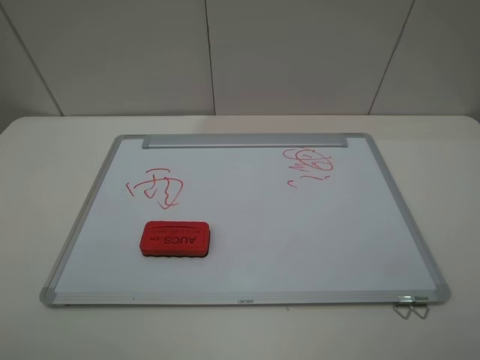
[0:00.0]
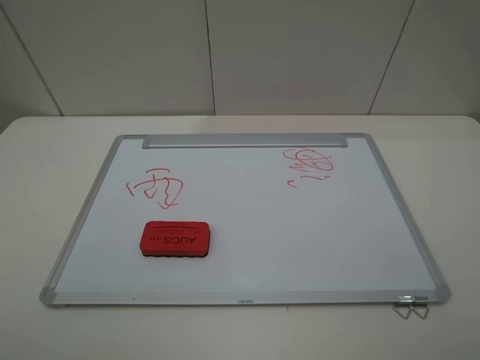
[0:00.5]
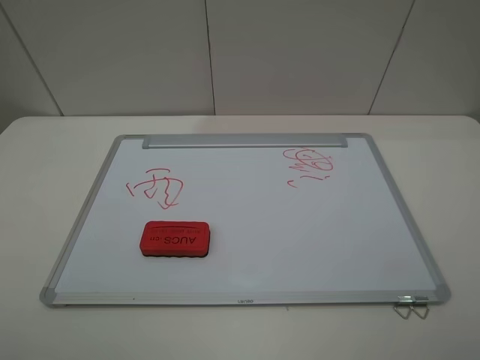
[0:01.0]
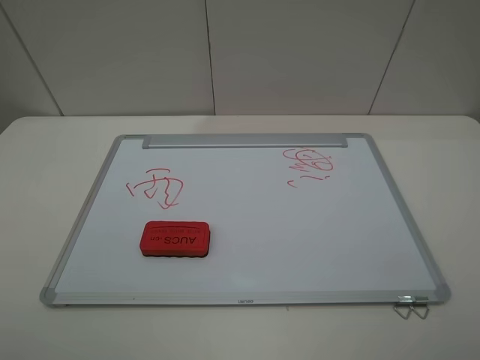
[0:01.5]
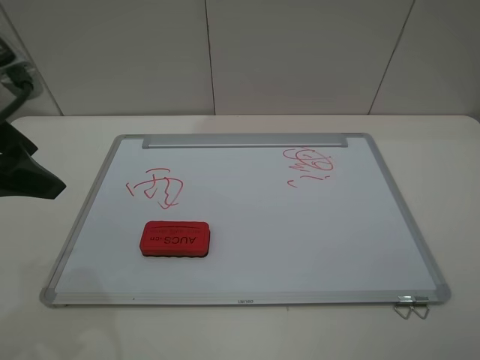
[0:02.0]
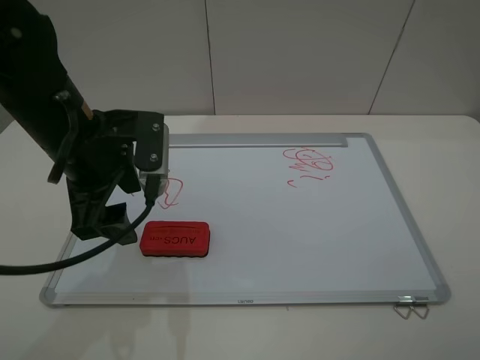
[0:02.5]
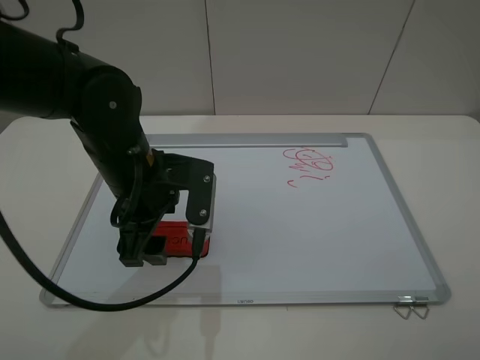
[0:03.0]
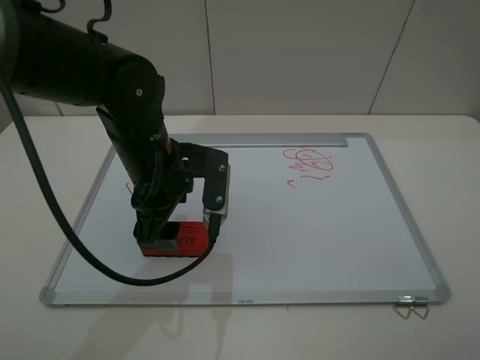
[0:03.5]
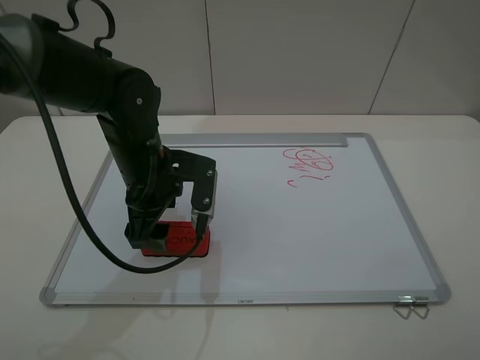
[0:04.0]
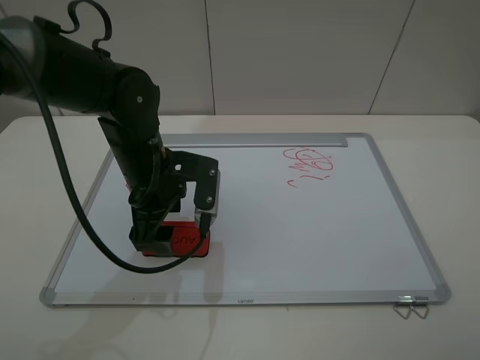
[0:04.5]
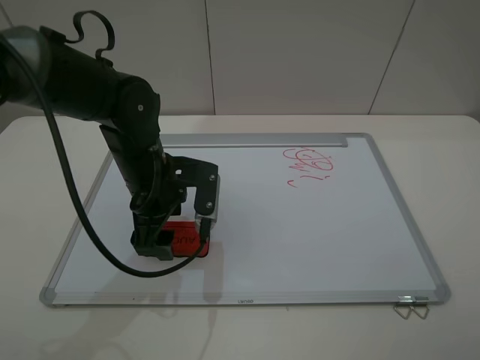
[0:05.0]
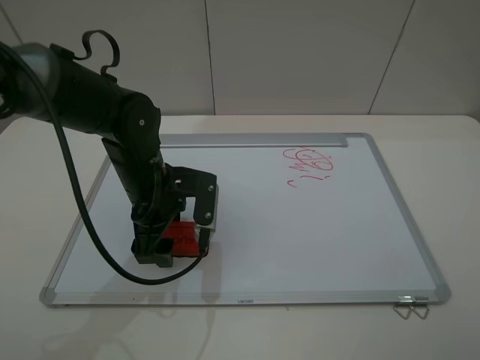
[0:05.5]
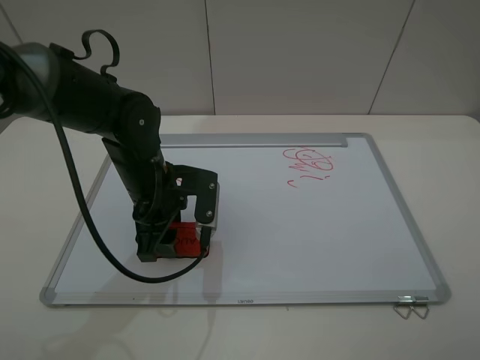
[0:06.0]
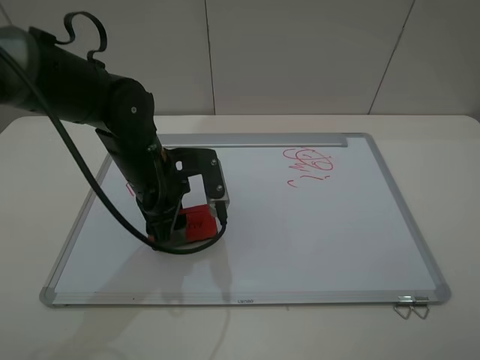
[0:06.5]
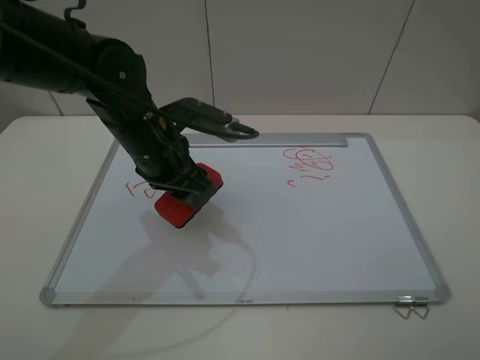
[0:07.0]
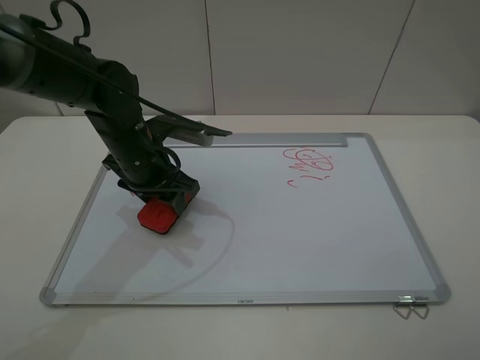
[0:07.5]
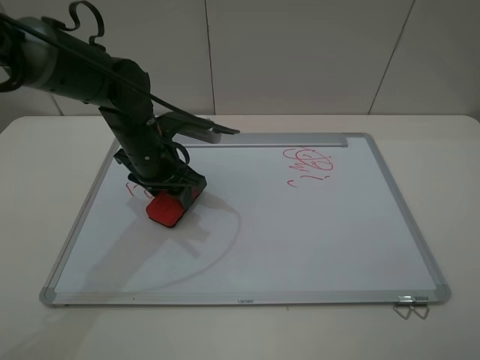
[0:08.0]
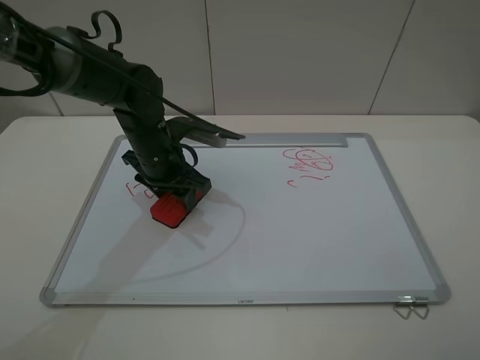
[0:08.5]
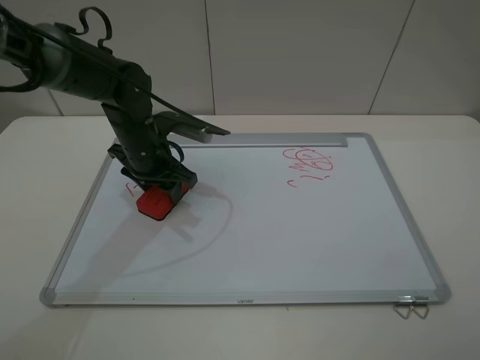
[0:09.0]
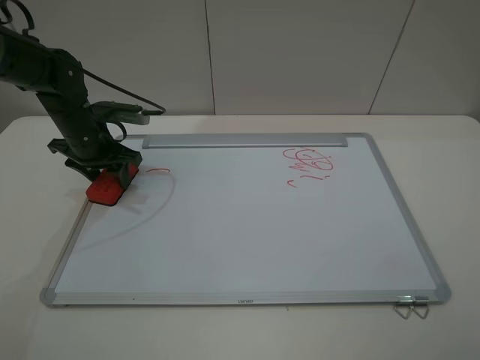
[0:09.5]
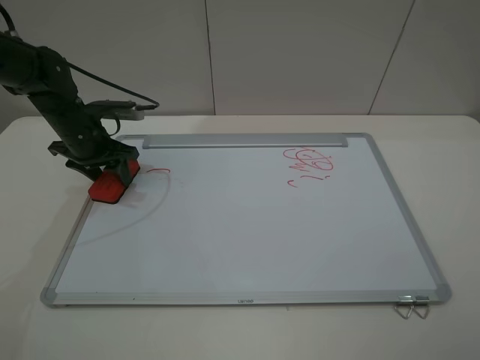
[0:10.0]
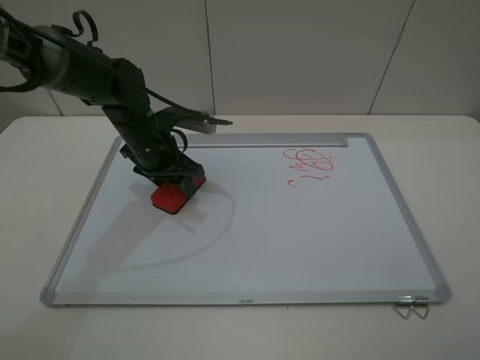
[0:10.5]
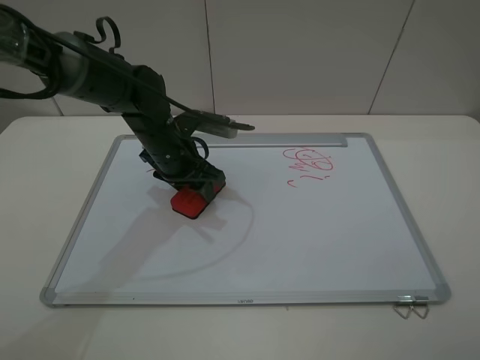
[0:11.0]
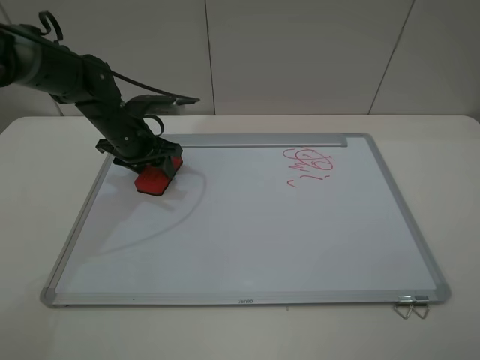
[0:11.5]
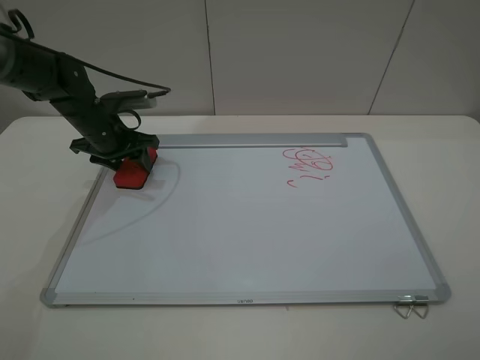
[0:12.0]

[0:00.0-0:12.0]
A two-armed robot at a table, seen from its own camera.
Step, 0.0 to 6.0 s: Grasp the eraser with the left gripper.
0.0 to 2.0 s: The left gripper is displaced forward by roughly 20 cm.
2.0 to 4.0 s: The left gripper goes approximately 20 cm to the right, downward and forward.
4.0 to 6.0 s: The left gripper closes.
6.0 to 8.0 s: The left gripper travels forward by some 5 cm.
8.0 to 10.0 s: The left gripper moves to the left and forward, some 15 cm.
10.0 to 12.0 s: The left gripper travels to the right and back again, roughly 15 cm each way.

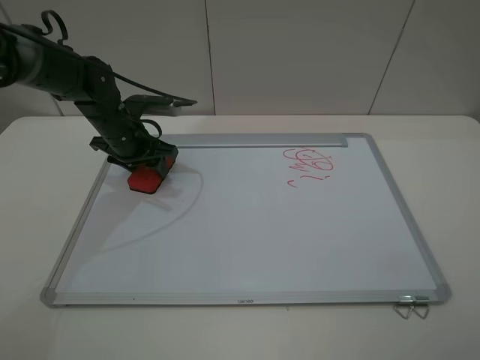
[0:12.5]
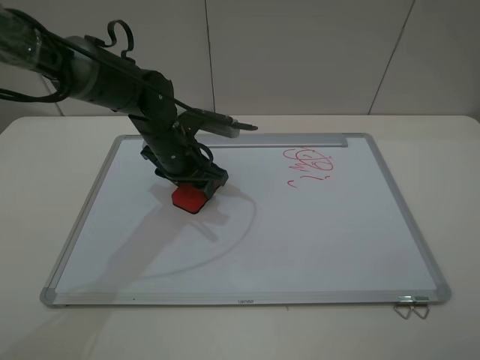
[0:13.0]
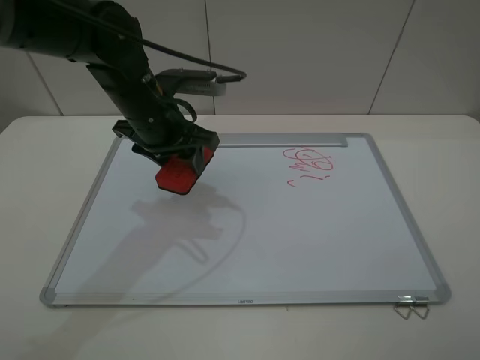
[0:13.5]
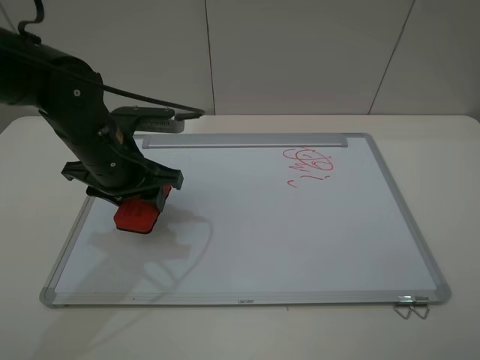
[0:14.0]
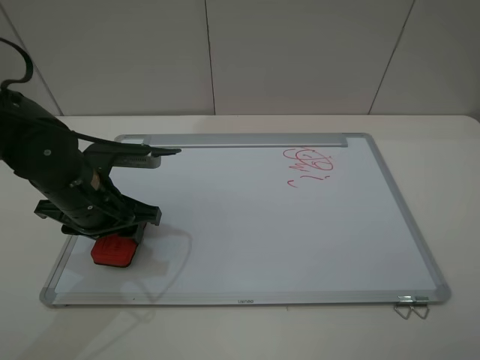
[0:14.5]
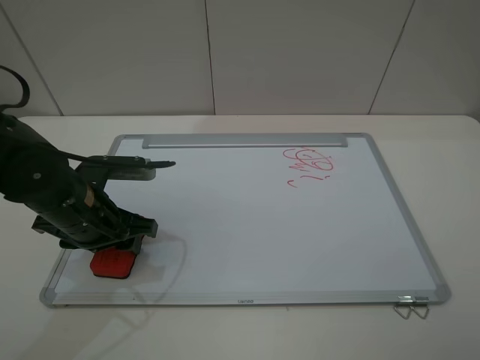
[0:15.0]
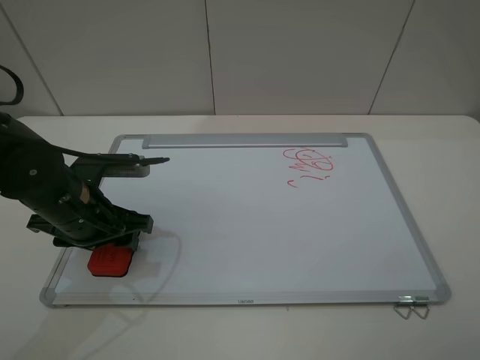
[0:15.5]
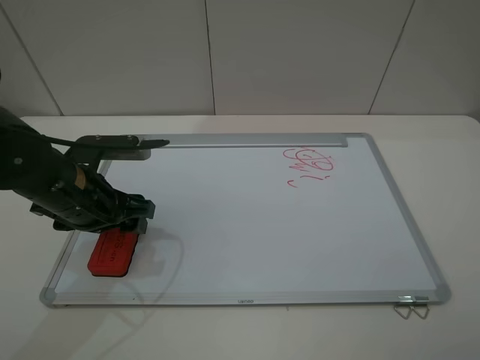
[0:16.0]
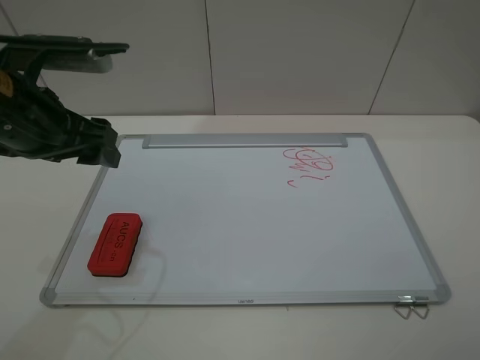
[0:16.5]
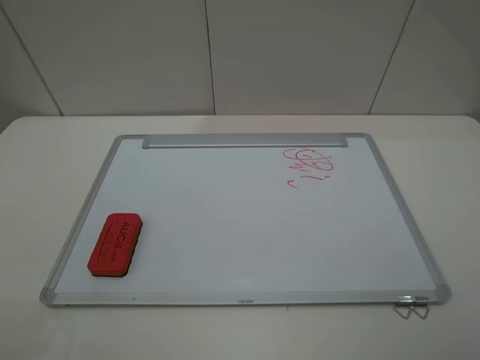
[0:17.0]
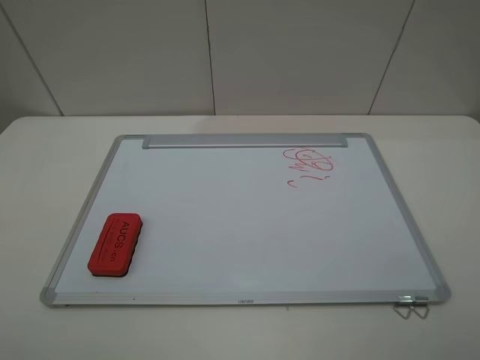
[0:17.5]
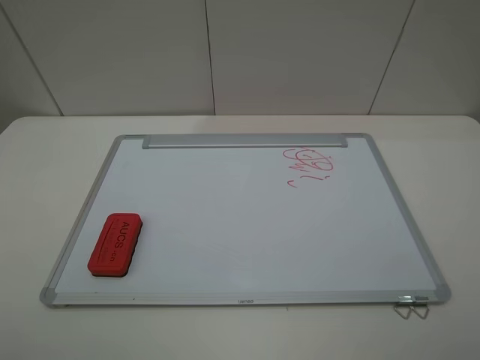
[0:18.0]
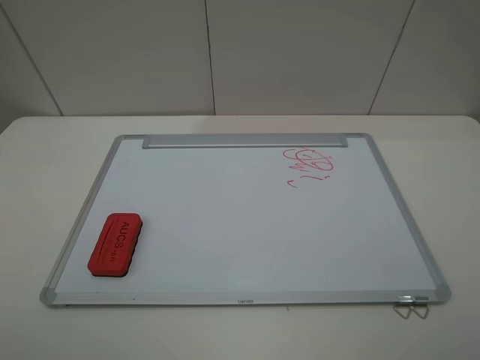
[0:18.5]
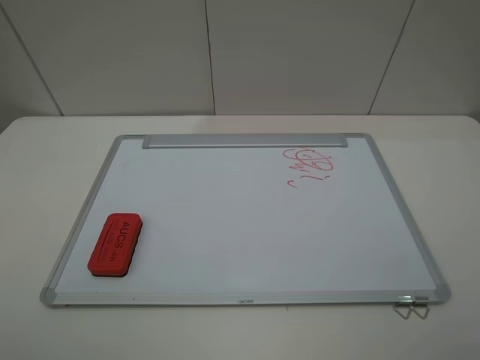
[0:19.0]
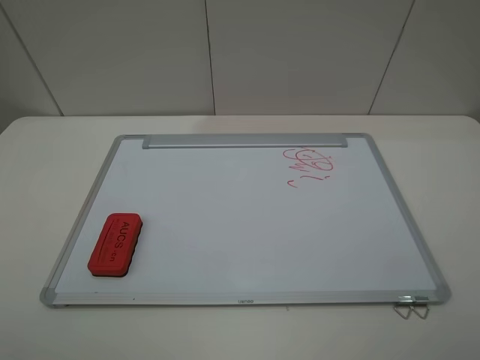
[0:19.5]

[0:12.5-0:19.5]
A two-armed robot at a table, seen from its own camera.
Step, 13.5 to 16.0 s: Place the eraser with the left gripper.
12.5 to 14.5 s: The left gripper travels backward by roughly 15 cm.
14.5 to 16.0 s: The left gripper opens.
16.0 to 17.5 s: The left gripper heads backward, upward and to the left, covering about 35 cm.

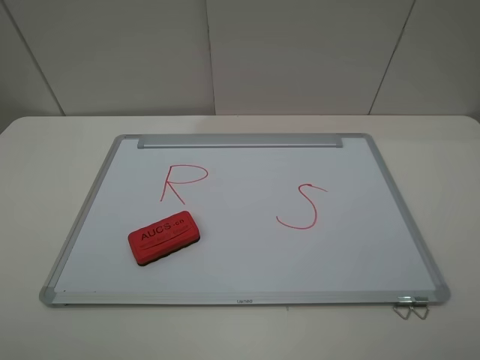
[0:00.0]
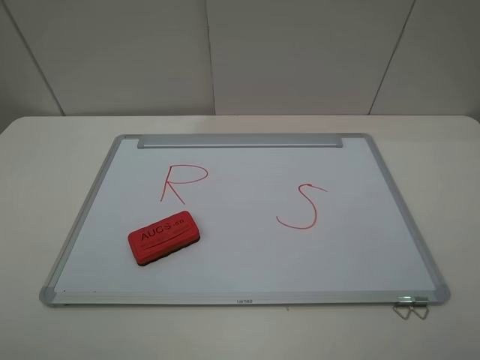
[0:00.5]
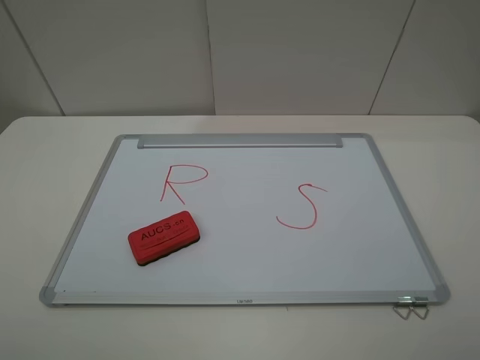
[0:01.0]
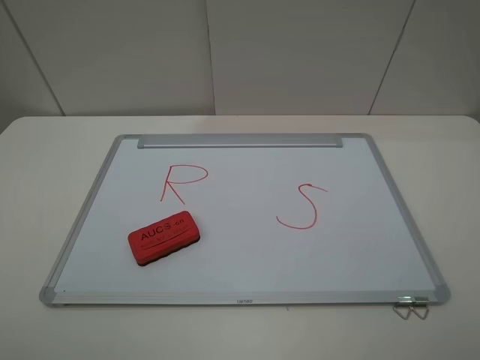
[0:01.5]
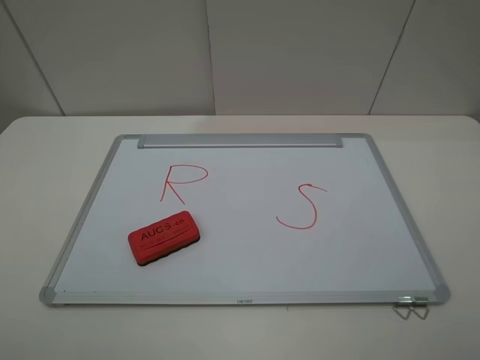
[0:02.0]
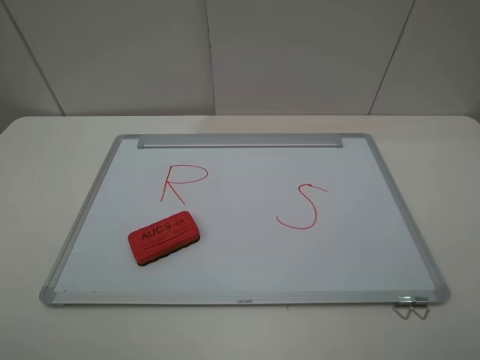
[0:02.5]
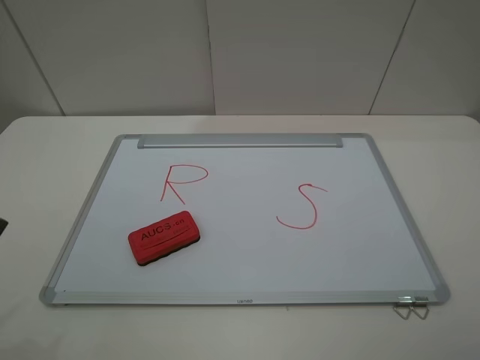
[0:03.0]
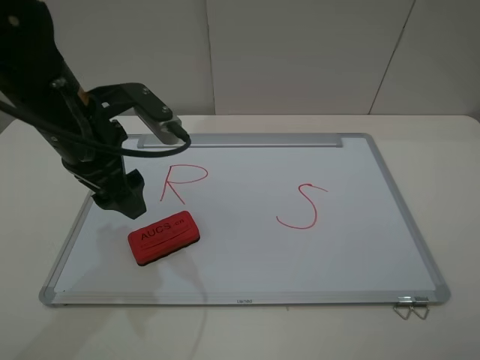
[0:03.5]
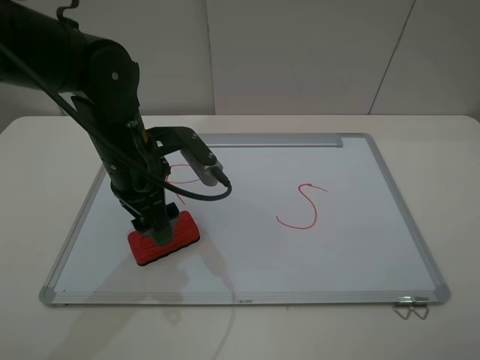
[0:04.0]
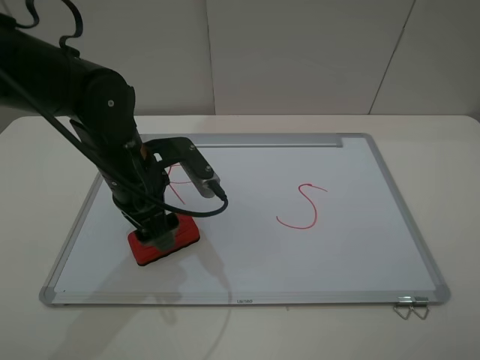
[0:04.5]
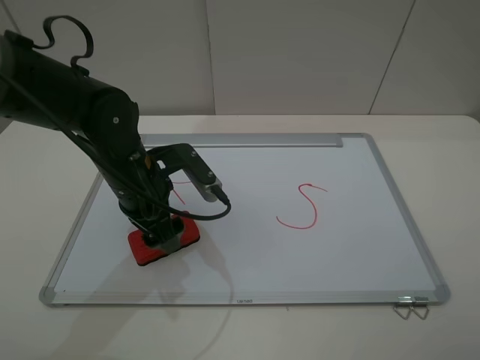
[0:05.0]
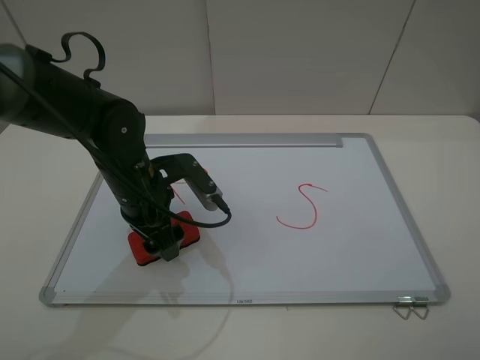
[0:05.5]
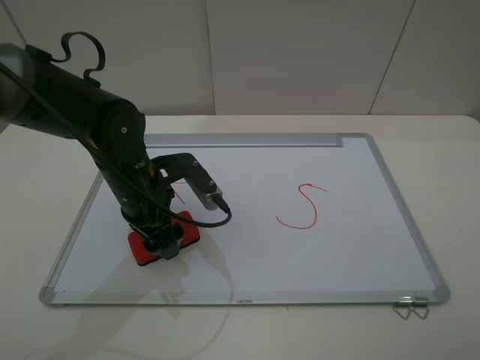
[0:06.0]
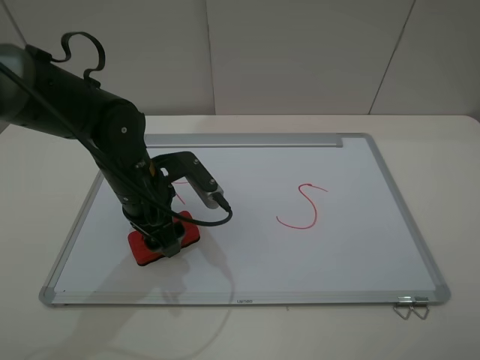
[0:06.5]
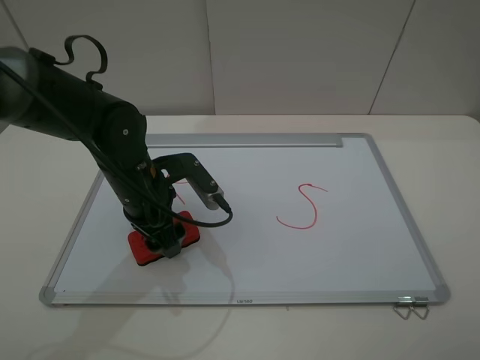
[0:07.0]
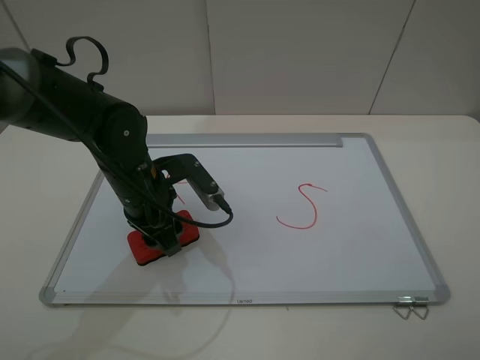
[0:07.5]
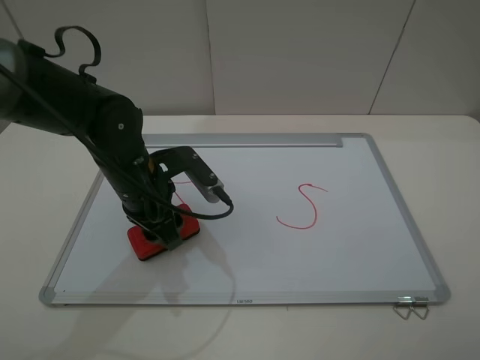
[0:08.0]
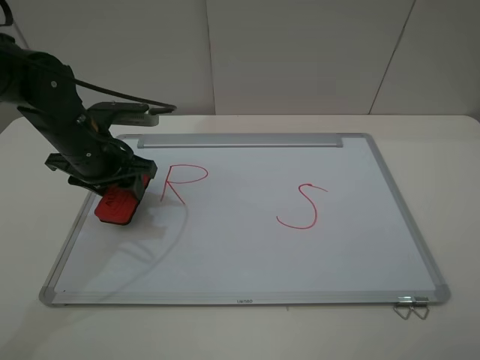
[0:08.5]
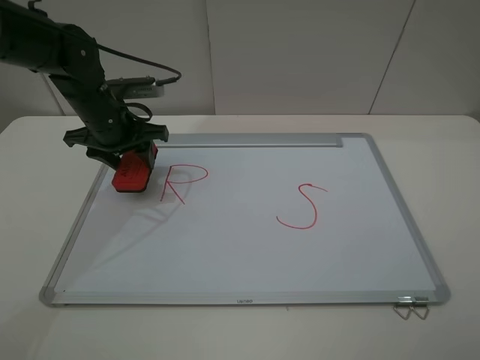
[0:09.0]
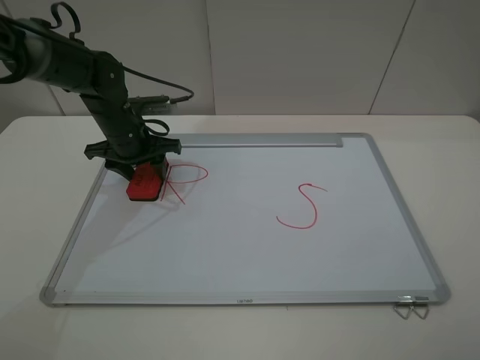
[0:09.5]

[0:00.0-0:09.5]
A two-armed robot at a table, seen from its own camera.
Step, 0.0 to 7.5 s: Grasp the eraser with the left gripper.
0.0 to 2.0 s: The two grippers keep their place.
2.0 to 4.0 s: The left gripper heads forward, to the right and downward, covering approximately 35 cm.
4.0 to 5.5 s: The grippers make only small movements.
5.5 to 7.5 s: The left gripper closes its fingers.
7.5 to 9.5 s: The left gripper moves forward and to the left, about 15 cm.
